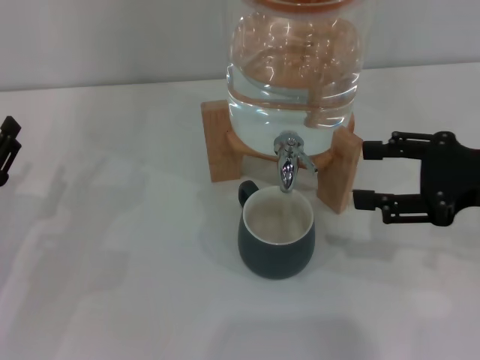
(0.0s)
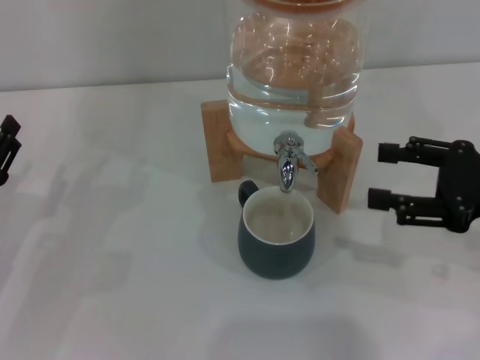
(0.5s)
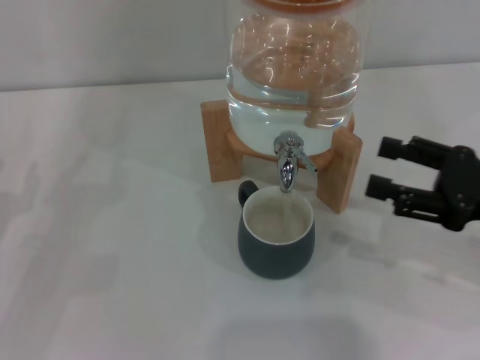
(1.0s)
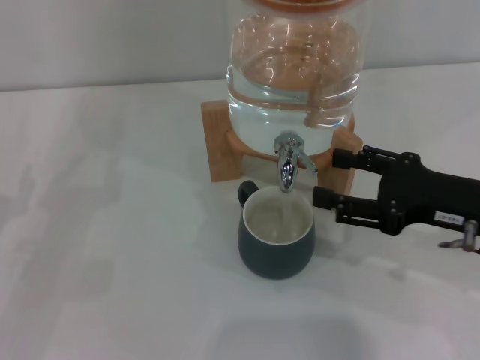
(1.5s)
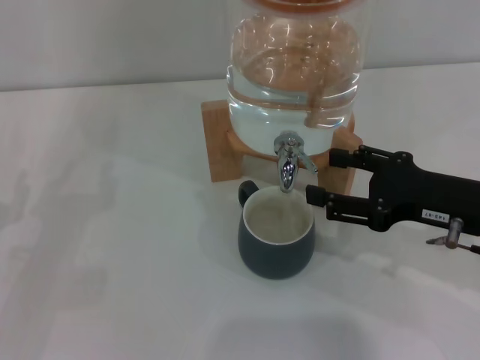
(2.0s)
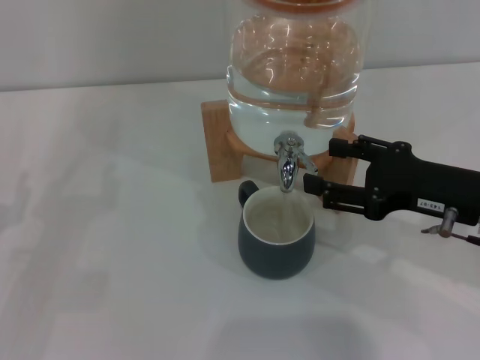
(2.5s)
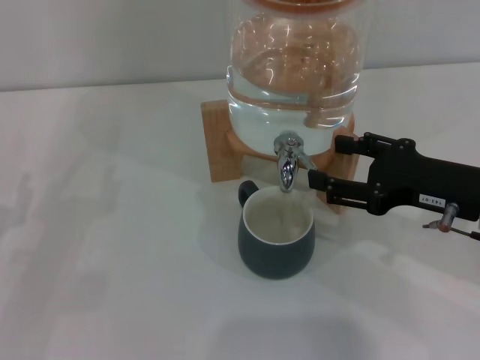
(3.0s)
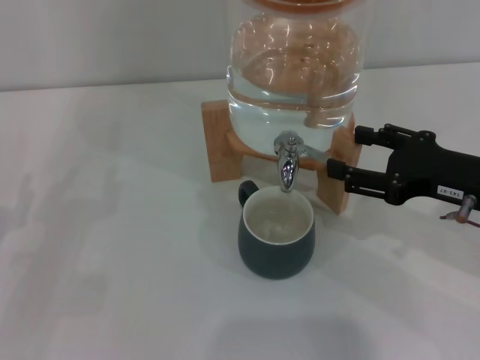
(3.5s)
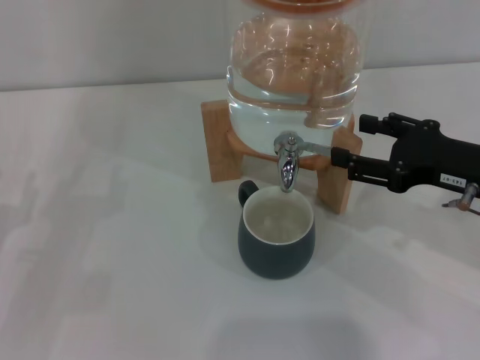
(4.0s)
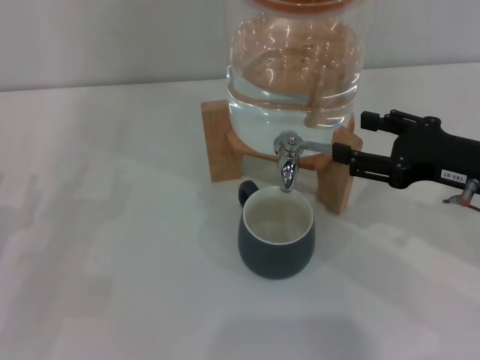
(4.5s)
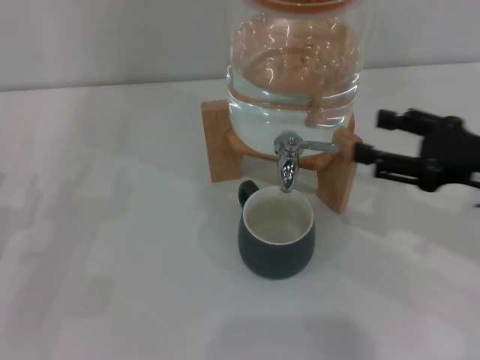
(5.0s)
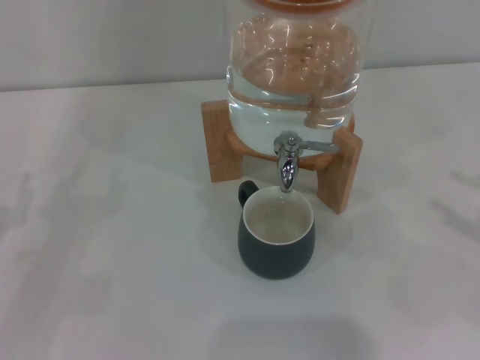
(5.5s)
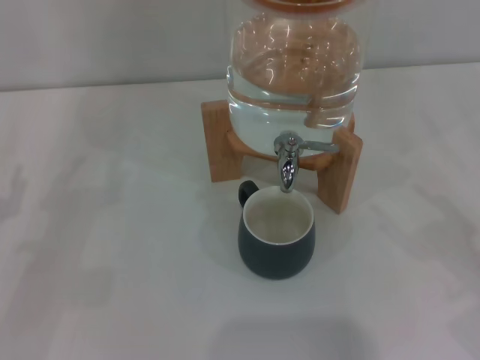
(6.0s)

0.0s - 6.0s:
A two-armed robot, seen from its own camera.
Task of the whole recording: the left gripper pick up the black cup and place it horizontally under the faucet, the right gripper turn on the faucet to fill the cup, and then turn off the faucet.
Step, 0.0s - 4.5s: Close the dispenser valve with the right gripper.
0.0s - 2.0s: The right gripper ends up approximately 5 cm from where it was.
2.0s - 4.0s: There are only small adjustments of the grippers.
4.0s - 6.0s: The right gripper moves to the right and backward, approximately 20 cm.
